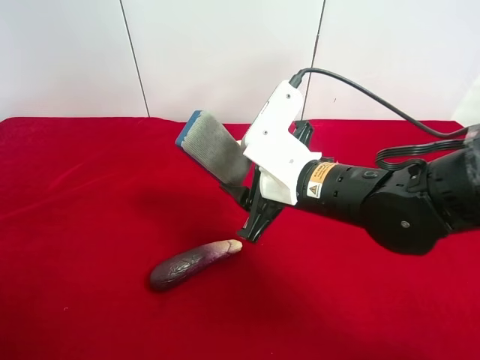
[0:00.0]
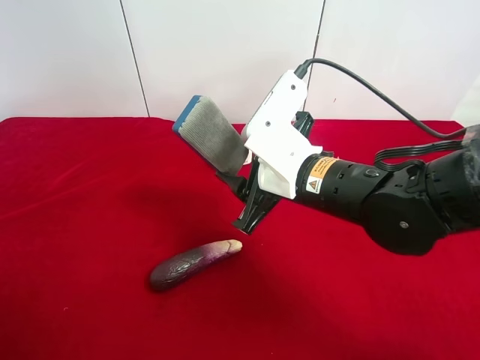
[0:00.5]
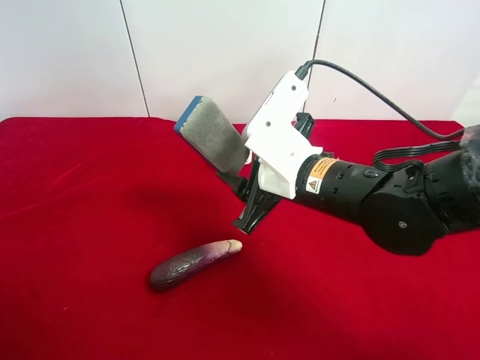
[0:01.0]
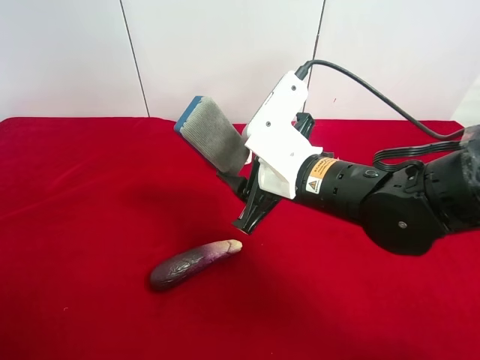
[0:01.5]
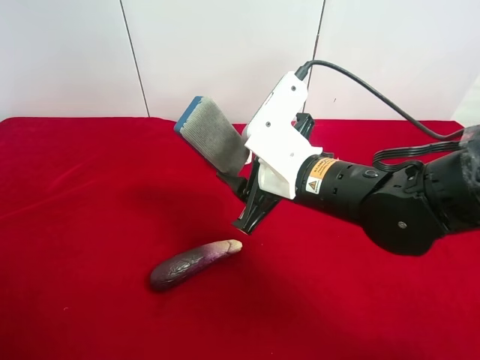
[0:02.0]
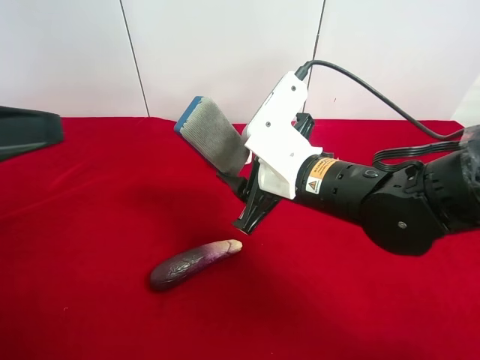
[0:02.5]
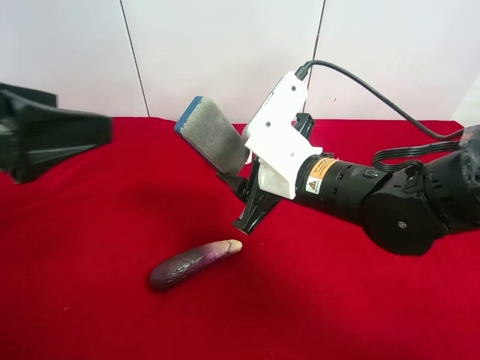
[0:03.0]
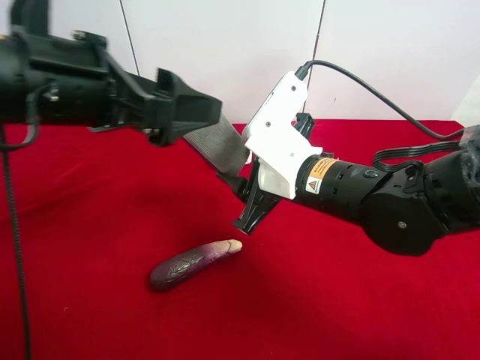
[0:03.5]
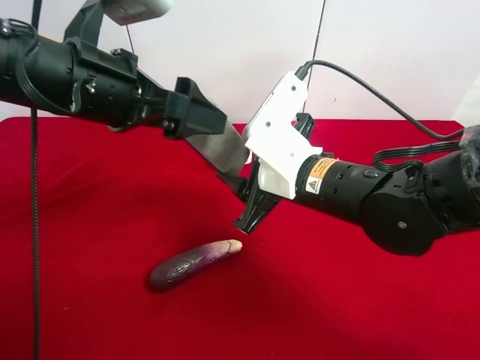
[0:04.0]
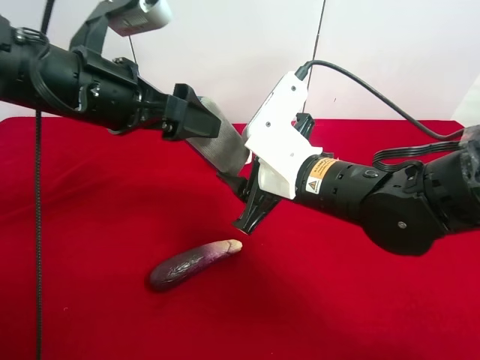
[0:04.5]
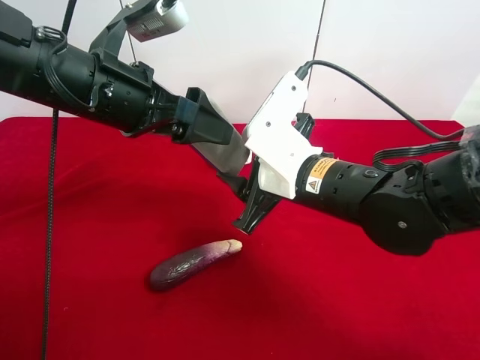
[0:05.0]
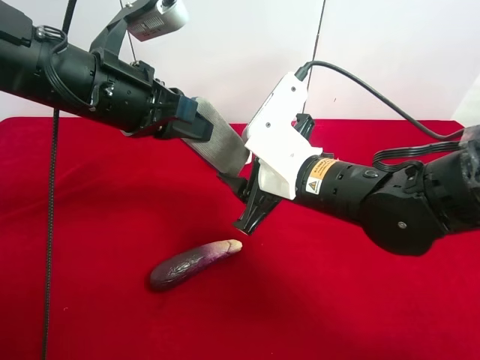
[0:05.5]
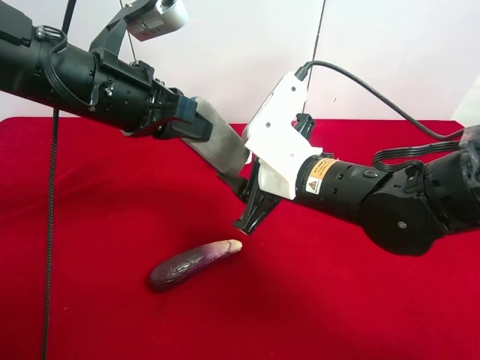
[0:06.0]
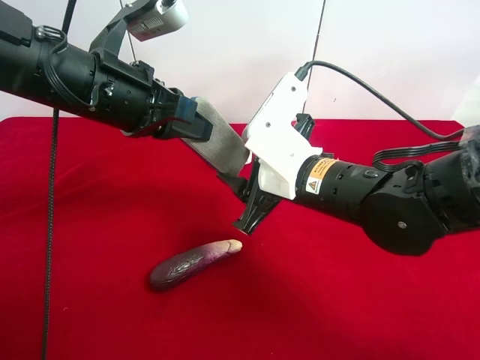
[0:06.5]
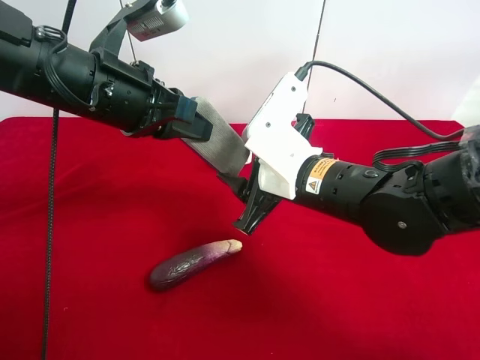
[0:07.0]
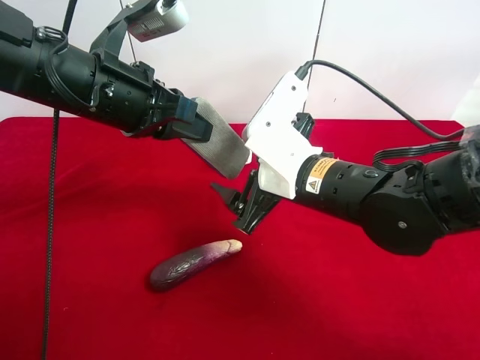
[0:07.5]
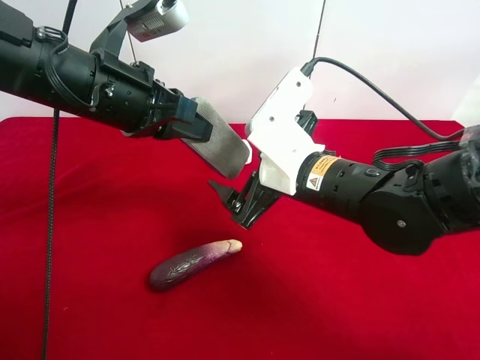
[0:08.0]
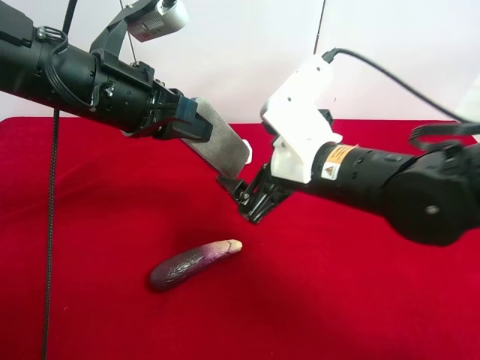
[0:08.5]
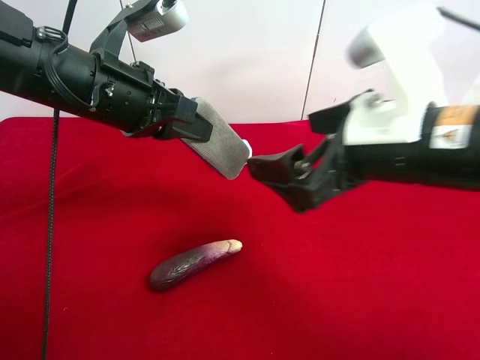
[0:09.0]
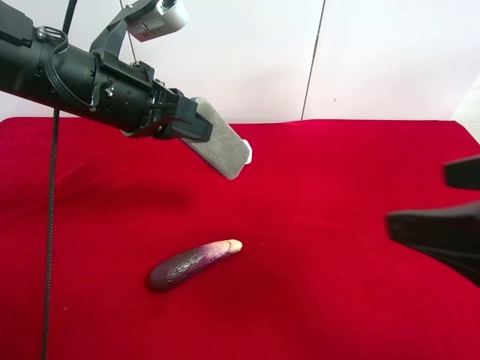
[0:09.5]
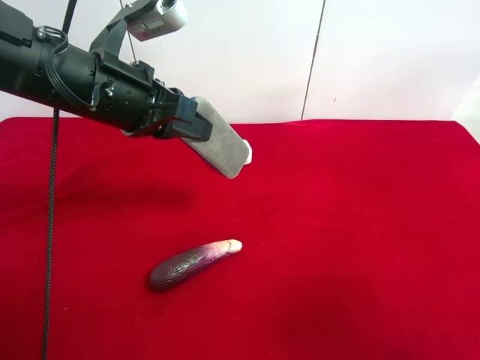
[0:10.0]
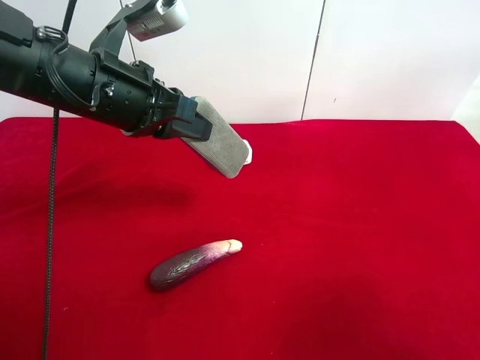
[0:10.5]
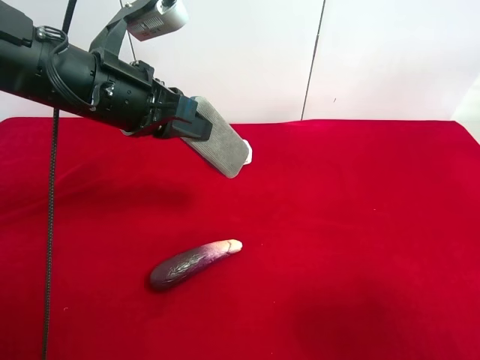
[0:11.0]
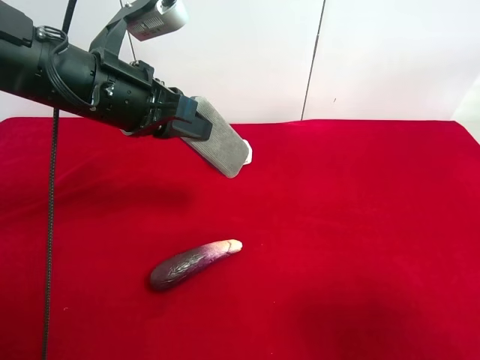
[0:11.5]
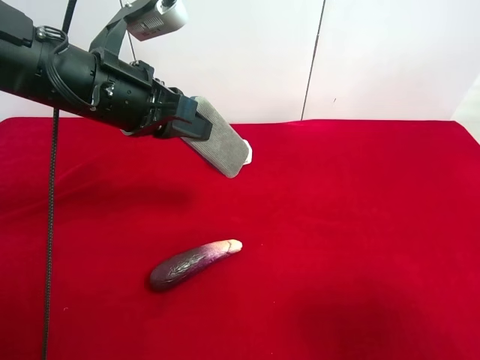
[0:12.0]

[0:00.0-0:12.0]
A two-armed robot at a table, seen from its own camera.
Task of the whole recording: use the right gripper to pick up the item and transfer it from the right gripper to the left gripper.
Step, 0:00.0 to 0:07.5: Pass the blue blackboard erasure to the left gripper.
0:00.0 to 0:02.0: The left gripper moves forward, about 5 cm.
0:02.0 to 0:04.0: The left gripper moves forward and to the right, roughly 25 cm.
0:04.0 to 0:06.0: The left gripper closes up.
0:06.0 to 0:08.0: The right gripper opens.
0:08.0 to 0:10.0: The right gripper shifts some 30 cm backward, to the right and upward.

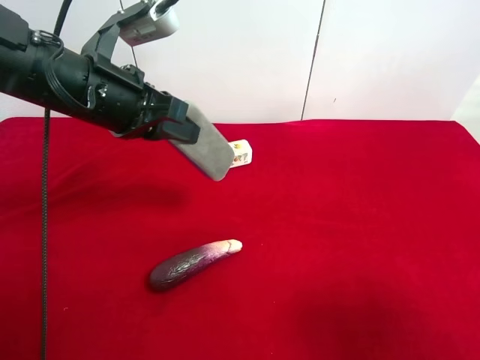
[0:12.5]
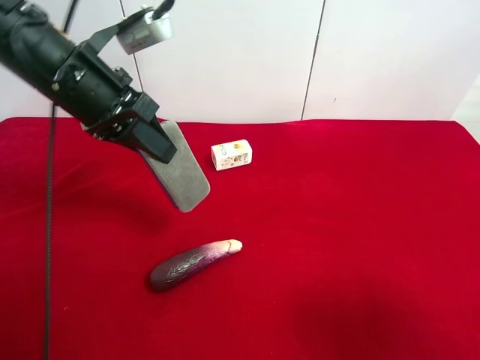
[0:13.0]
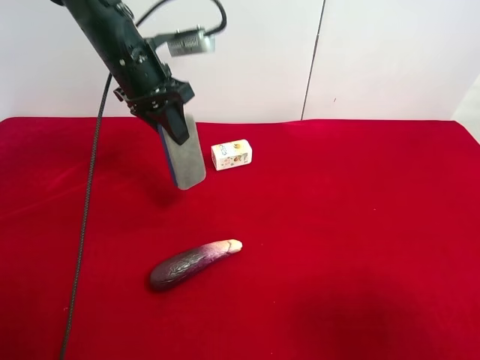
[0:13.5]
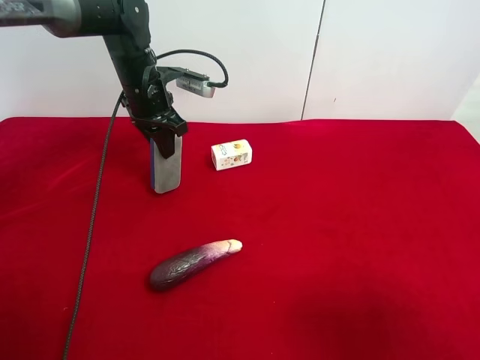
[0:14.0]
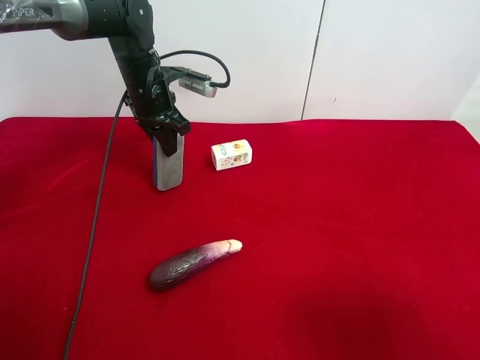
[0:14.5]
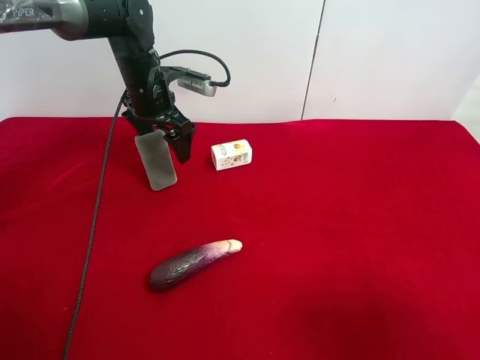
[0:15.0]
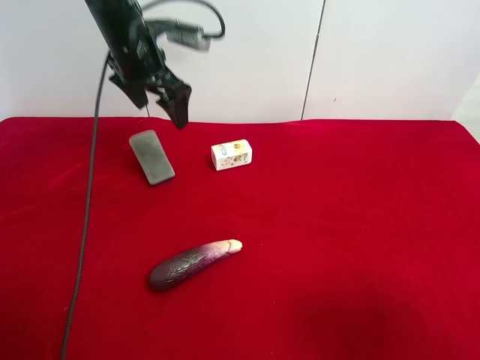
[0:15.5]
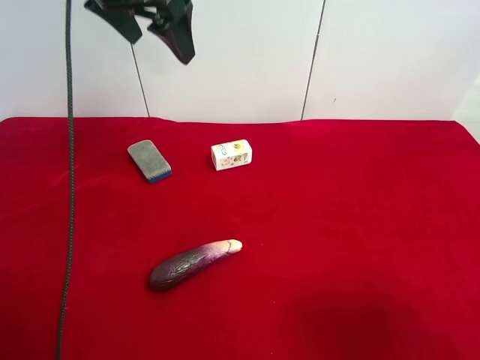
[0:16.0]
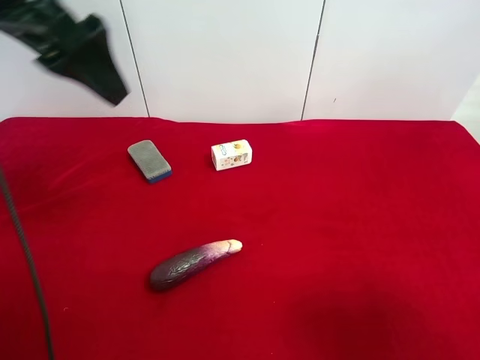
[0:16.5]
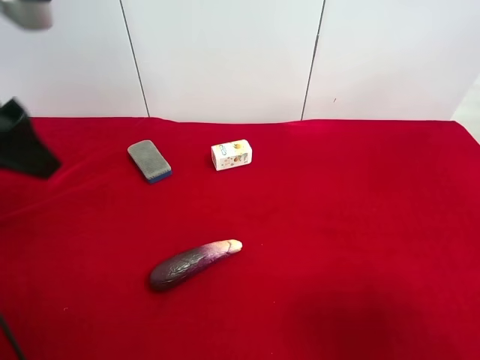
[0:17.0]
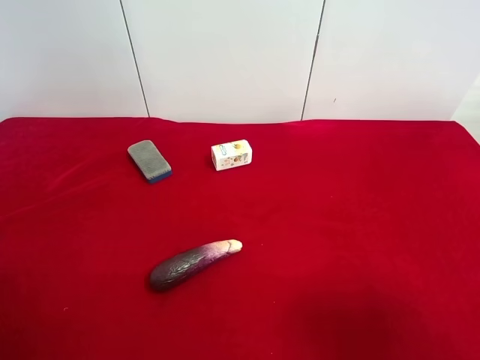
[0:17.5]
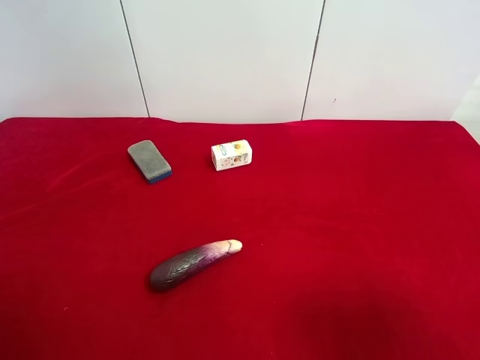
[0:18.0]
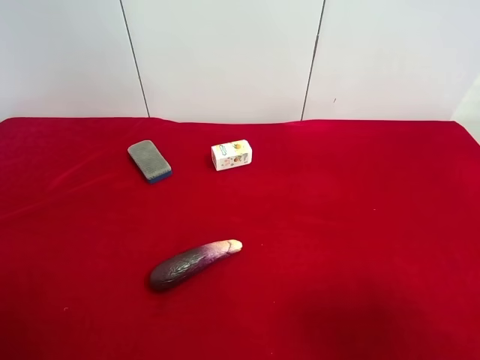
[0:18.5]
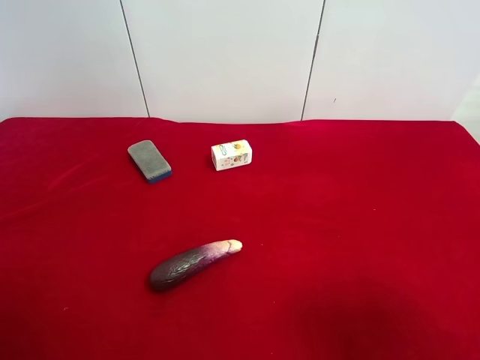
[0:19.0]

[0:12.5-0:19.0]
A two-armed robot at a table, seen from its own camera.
Task of the whole recording: use the right gripper to pick up the item and transfer it from the right gripper to the left gripper.
Step, 0:12.5 to 0:15.5: The left gripper places blue blackboard erasure on the left side of the table.
0:12.5 to 0:14.5: The left gripper is displaced forward and downward by roughly 20 cm.
0:14.5 to 0:17.0: The left gripper travels backward and upward by some 30 cm, and opens.
0:17.0 to 0:19.0: The left gripper shifts some 20 cm backward, to the left and downward.

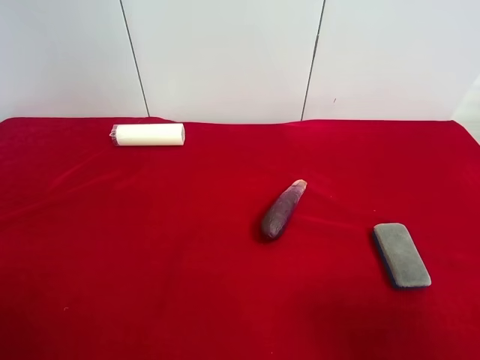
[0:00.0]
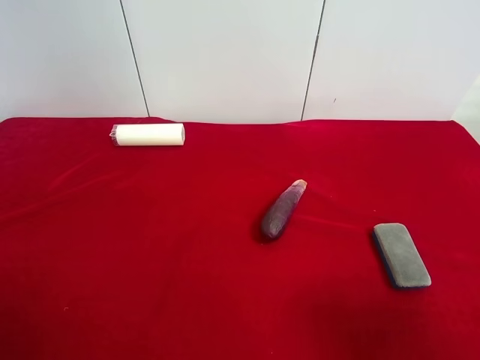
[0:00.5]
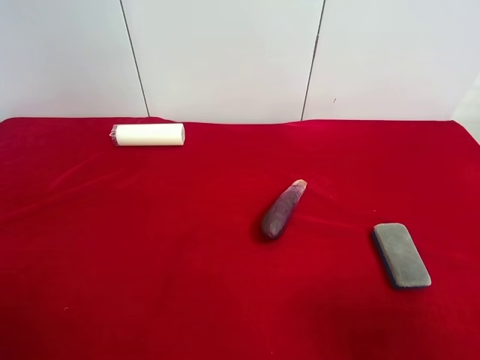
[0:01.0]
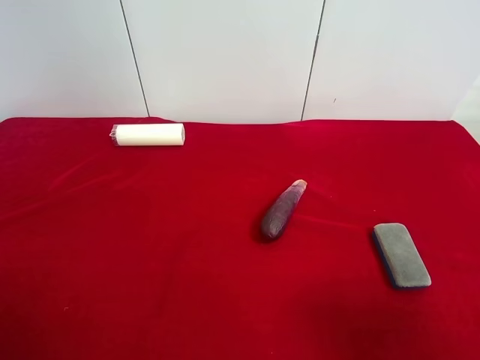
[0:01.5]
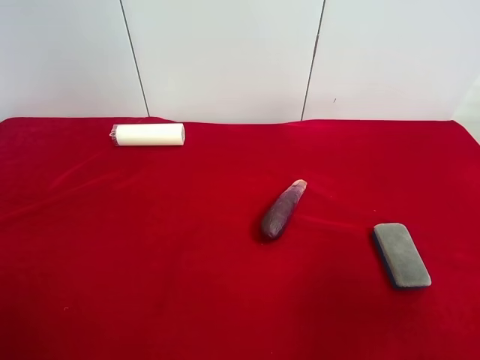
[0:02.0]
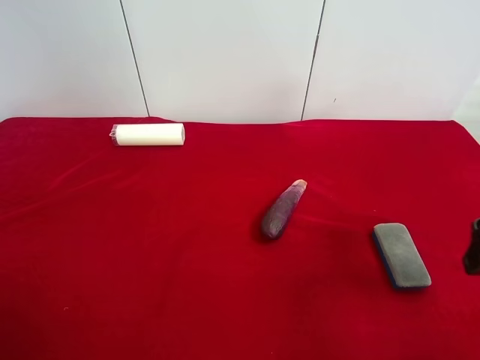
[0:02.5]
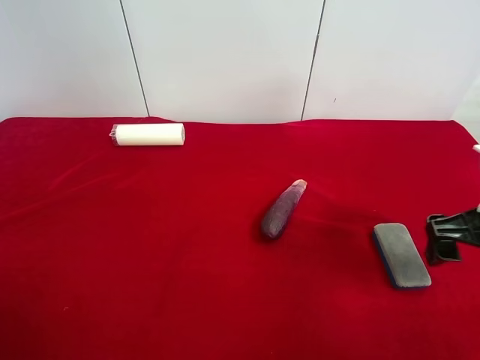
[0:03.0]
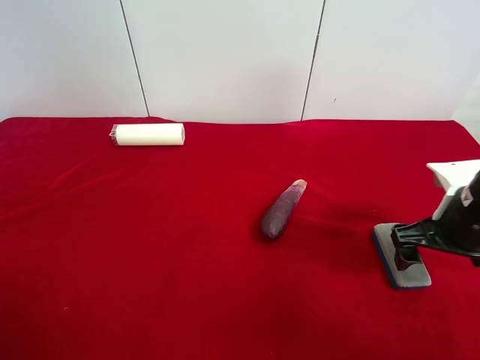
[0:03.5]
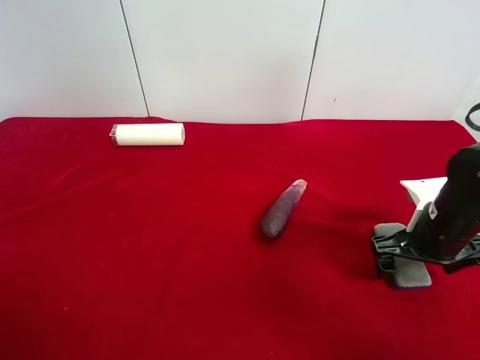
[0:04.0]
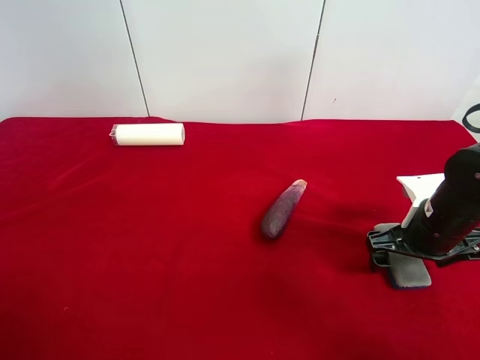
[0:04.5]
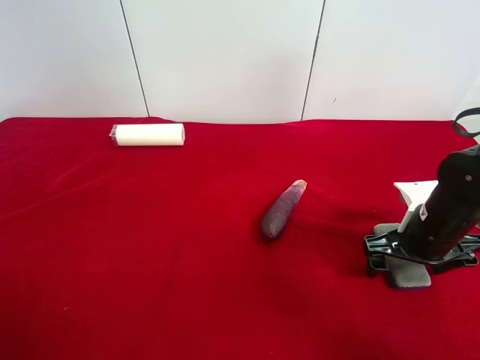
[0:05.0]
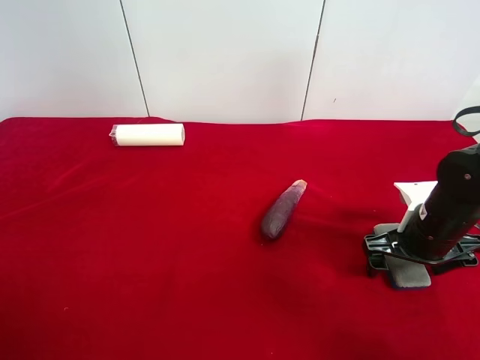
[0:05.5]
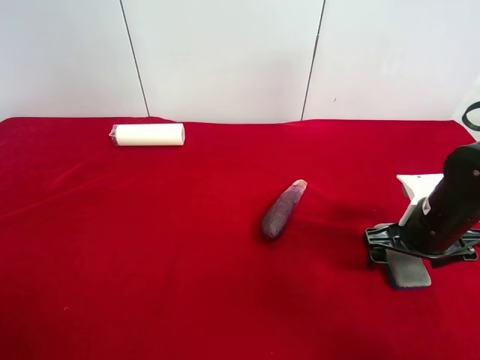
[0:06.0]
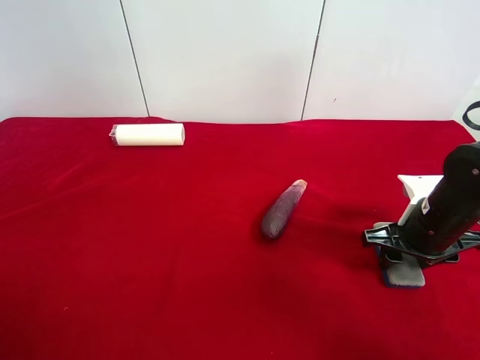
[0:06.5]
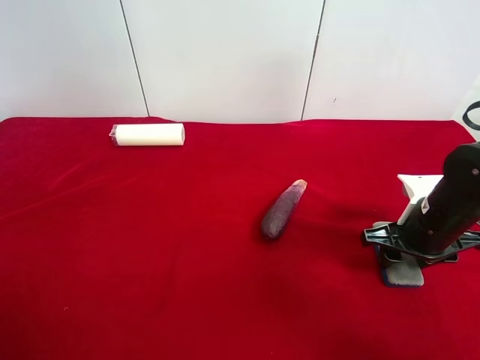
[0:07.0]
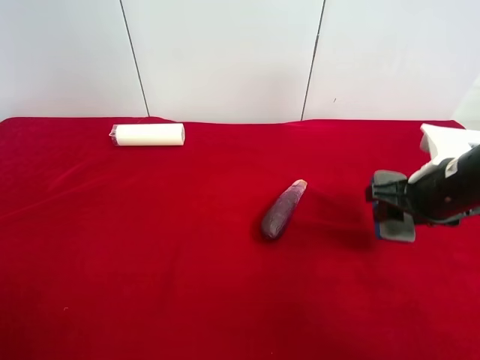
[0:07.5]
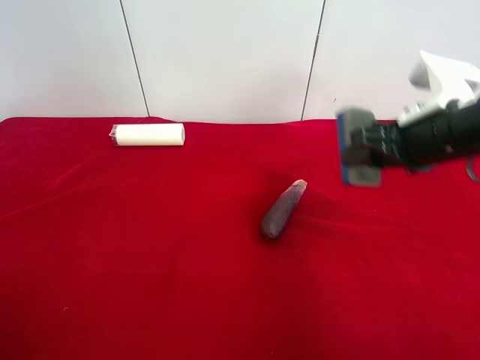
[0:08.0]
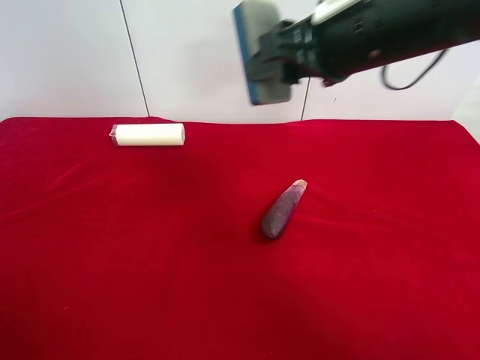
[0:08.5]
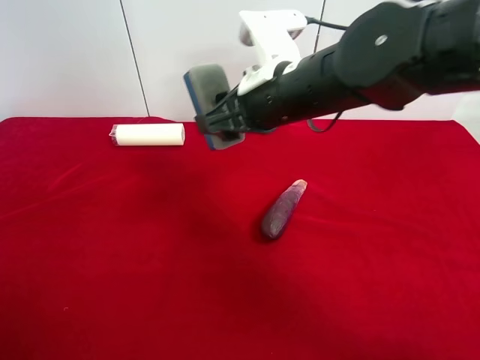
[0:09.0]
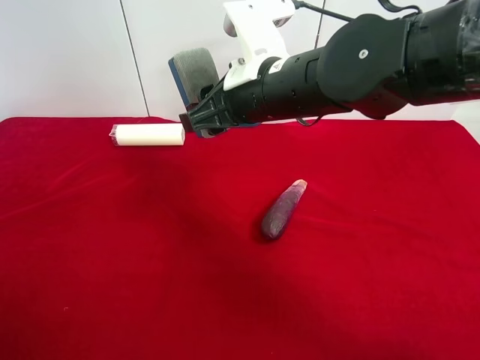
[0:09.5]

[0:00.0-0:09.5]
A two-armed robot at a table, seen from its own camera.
Task of the whole recording: use the right gripper to pick up the item and transfer it from the right gripper to the left gripper.
Step, 0:00.0 to 0:06.0: Use the right gripper to grab the blue blackboard erasure on the right side of the table.
0:02.0 to 0:04.0: The right gripper goes about 20 cm downward and forward.
0:04.0 to 0:05.5: The grippers move only a little.
0:05.5 to 0:07.5: The right gripper goes about 10 cm upward, and closes up.
0:07.5 to 0:09.5: The right gripper is displaced to the left by some 20 cm.
